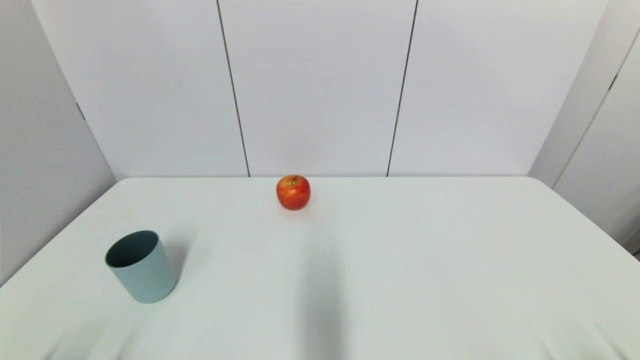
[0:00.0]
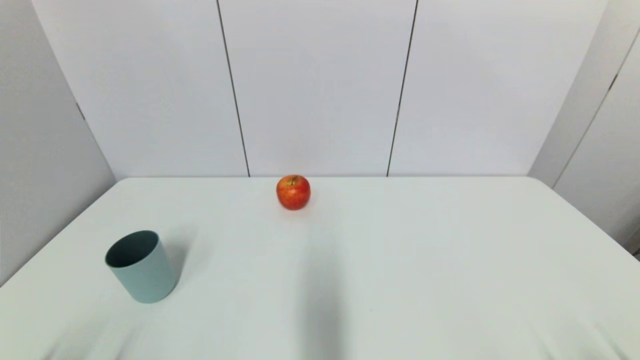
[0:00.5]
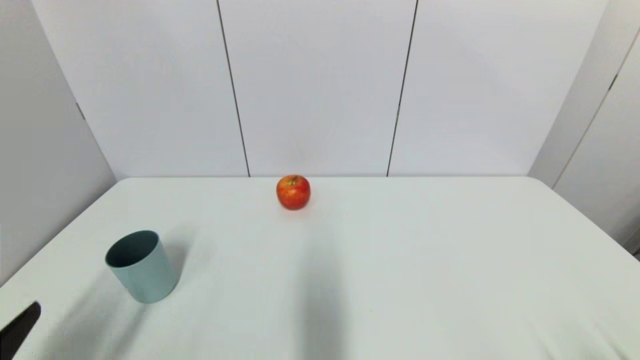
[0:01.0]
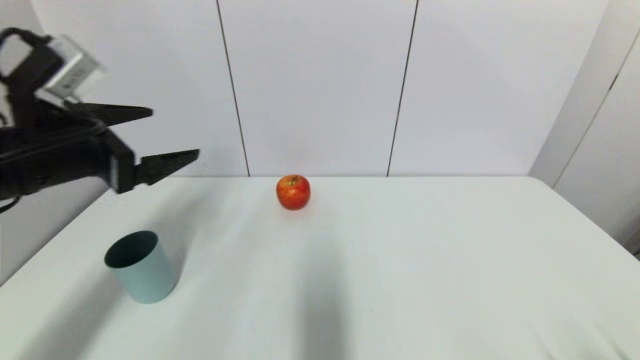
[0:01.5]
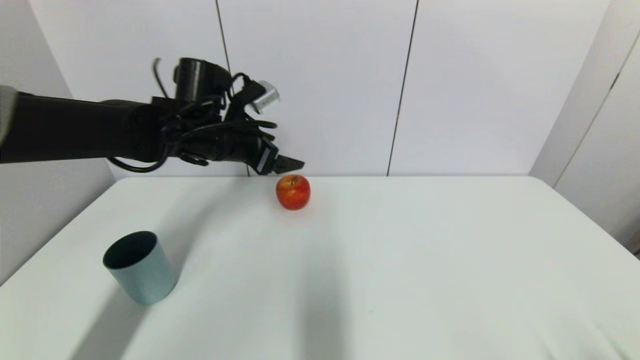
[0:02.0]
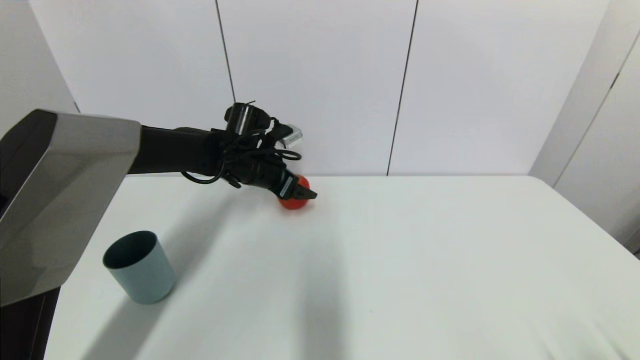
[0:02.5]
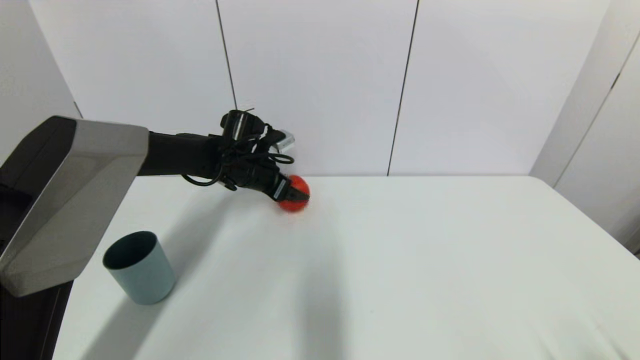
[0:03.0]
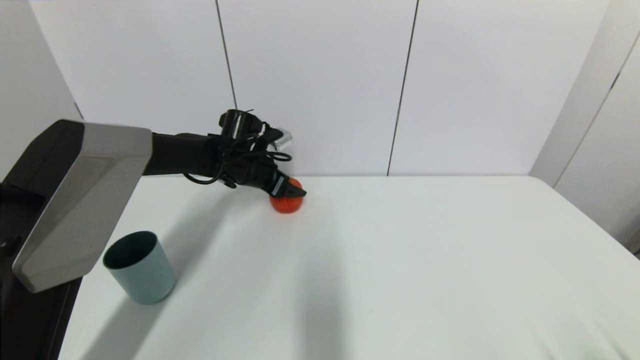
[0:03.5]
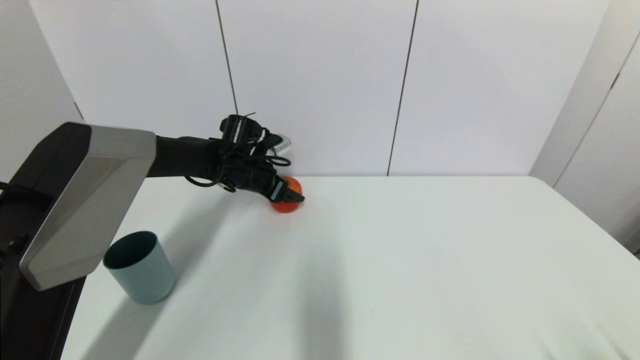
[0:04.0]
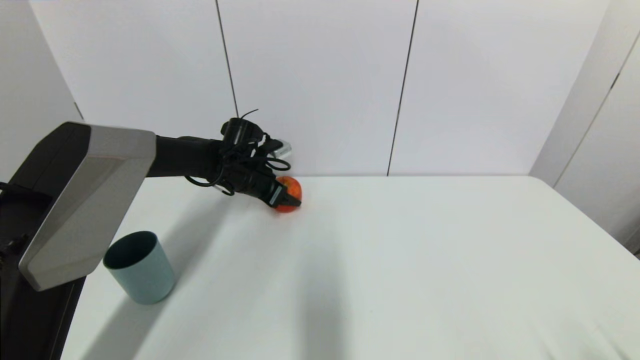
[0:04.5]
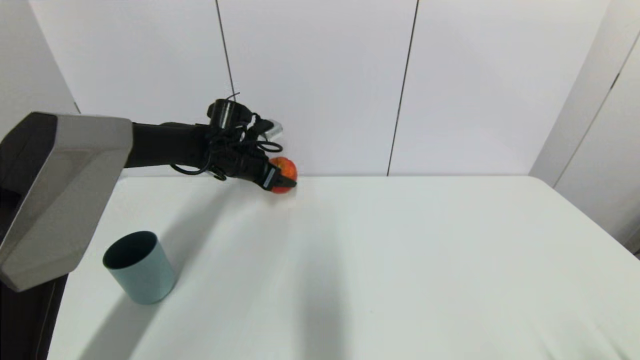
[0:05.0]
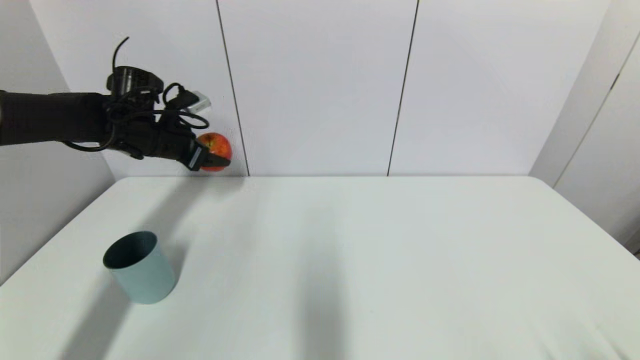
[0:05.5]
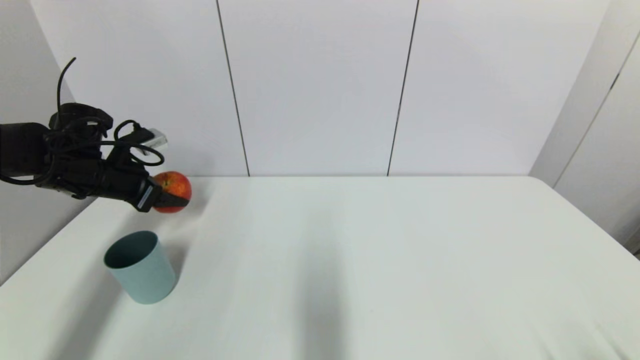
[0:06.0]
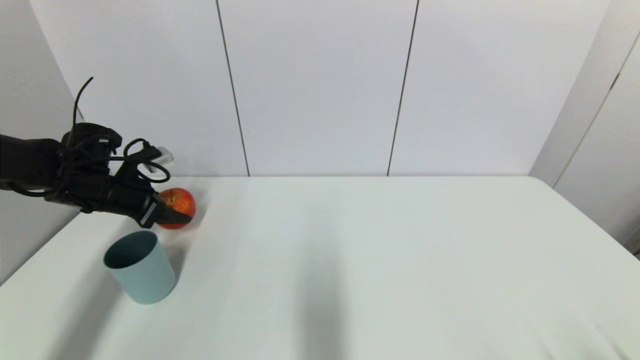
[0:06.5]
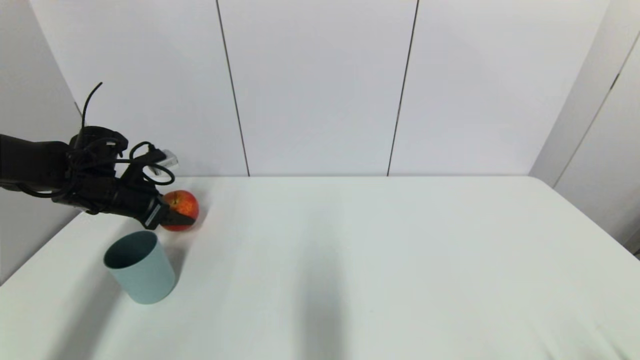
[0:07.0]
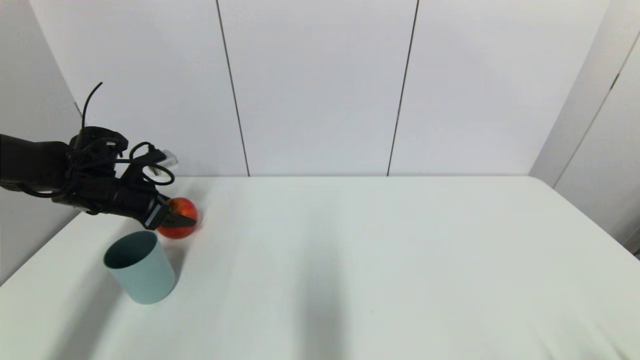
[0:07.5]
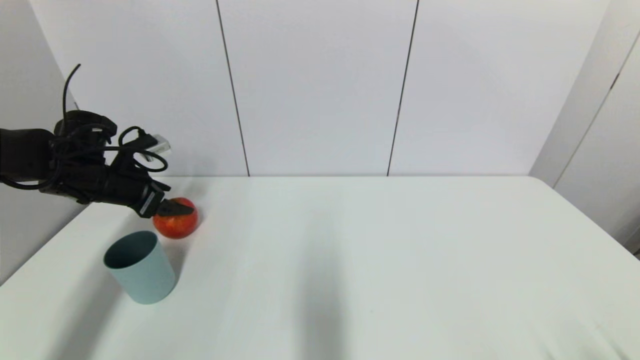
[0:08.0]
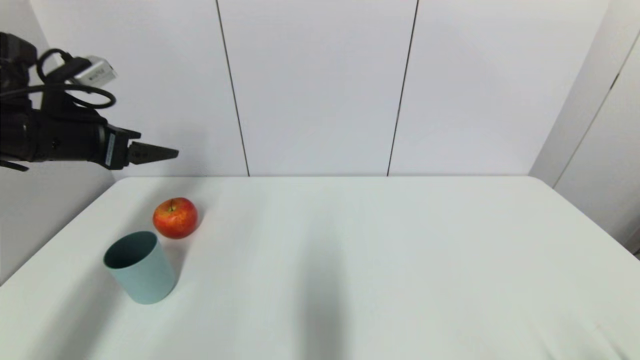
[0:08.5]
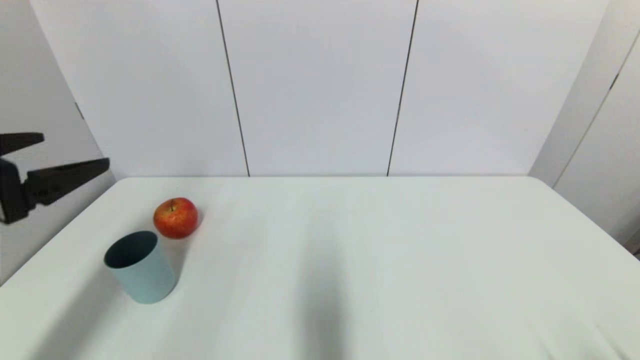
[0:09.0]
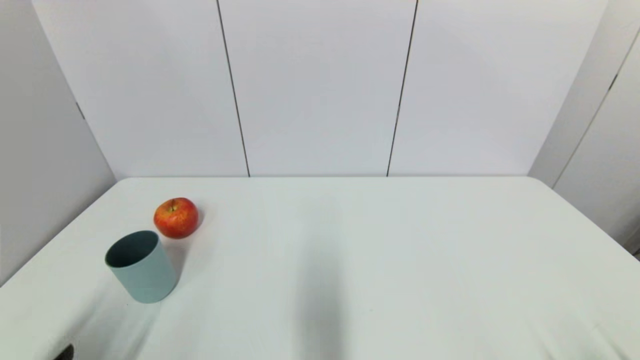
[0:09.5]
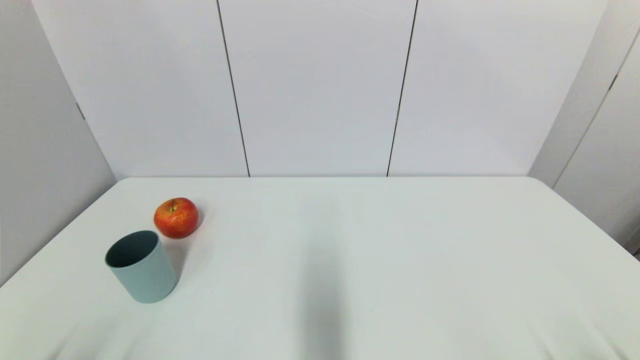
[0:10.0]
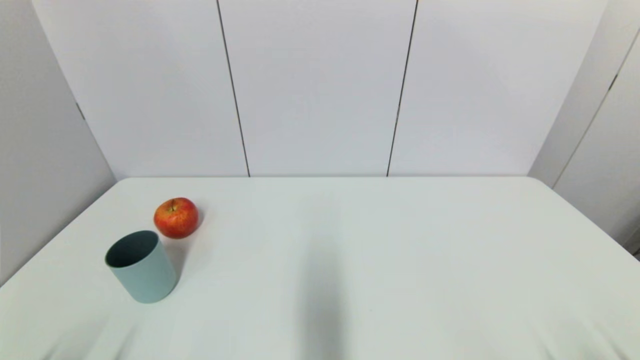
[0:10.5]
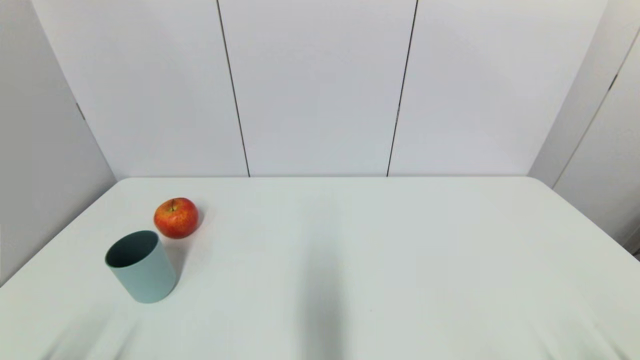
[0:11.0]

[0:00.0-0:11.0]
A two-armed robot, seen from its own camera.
Task of the whole recording: put the apple in the designated position.
Step, 0:01.0 to 0:04.5: Grasp the apple with left gripper.
Step, 0:05.0 to 0:08.0: Place the apple on the table with left gripper.
0:00.0 to 0:02.0: The left gripper is displaced forward, to the right and upward by some 50 cm.
0:02.0 to 0:03.5: The left gripper is displaced downward and forward by roughly 10 cm.
0:03.5 to 0:05.5: The left gripper heads to the left and upward, covering roughly 15 cm, and closes its fingers.
0:05.5 to 0:07.5: The left gripper heads downward and to the left, covering approximately 10 cm, and opens up.
0:07.5 to 0:09.0: The left gripper shifts some 25 cm backward and upward.
0:09.0 to 0:11.0: The left gripper is displaced downward and backward by about 25 cm.
